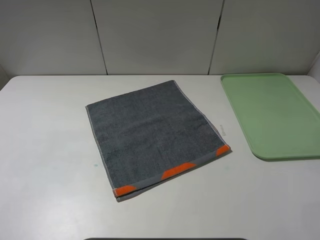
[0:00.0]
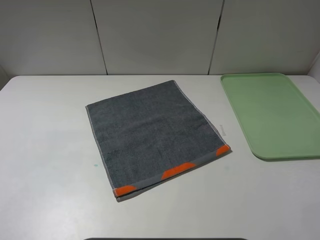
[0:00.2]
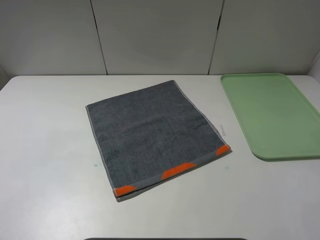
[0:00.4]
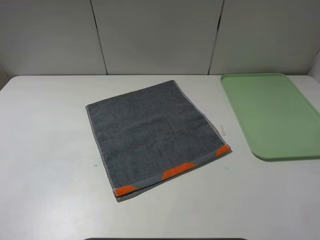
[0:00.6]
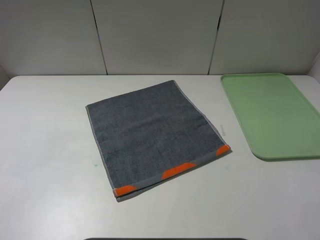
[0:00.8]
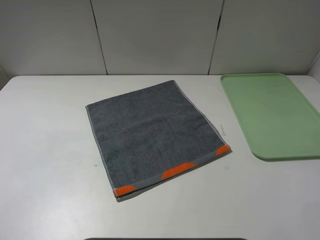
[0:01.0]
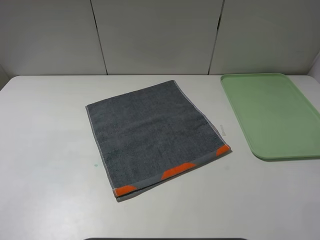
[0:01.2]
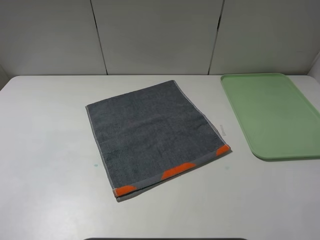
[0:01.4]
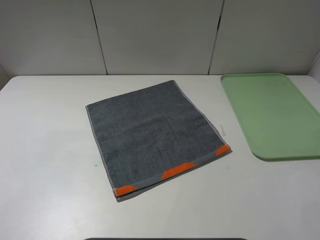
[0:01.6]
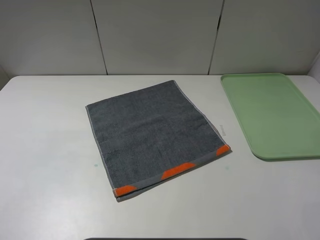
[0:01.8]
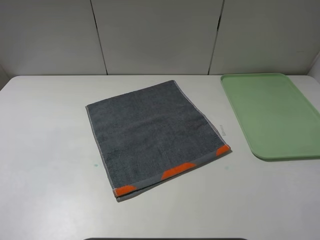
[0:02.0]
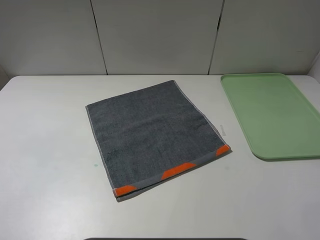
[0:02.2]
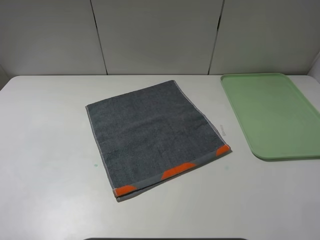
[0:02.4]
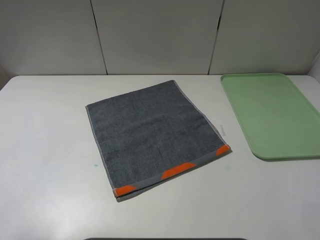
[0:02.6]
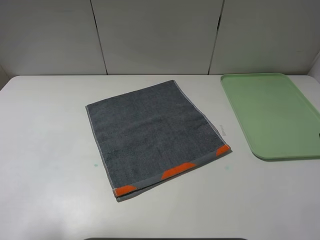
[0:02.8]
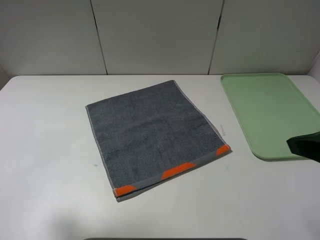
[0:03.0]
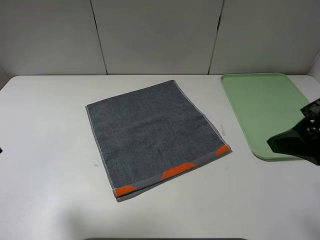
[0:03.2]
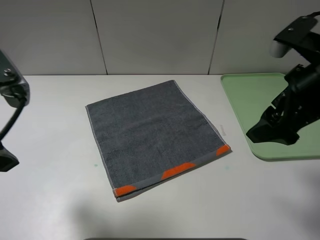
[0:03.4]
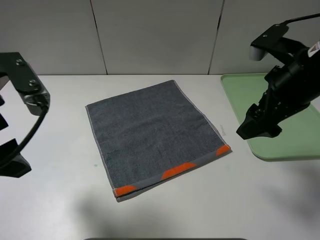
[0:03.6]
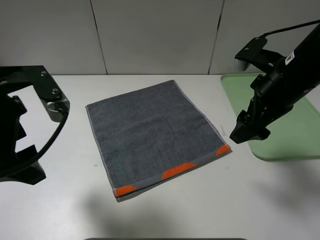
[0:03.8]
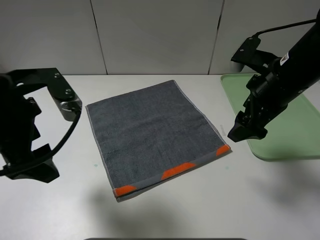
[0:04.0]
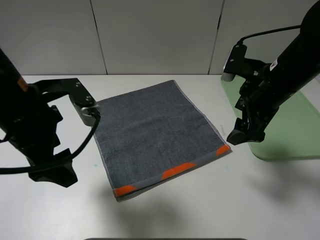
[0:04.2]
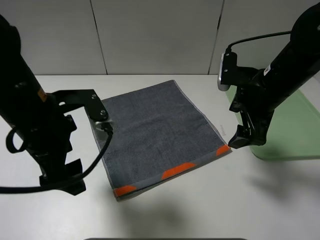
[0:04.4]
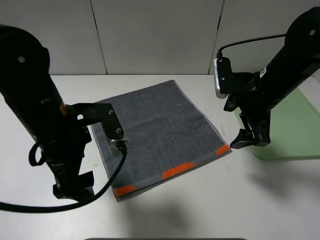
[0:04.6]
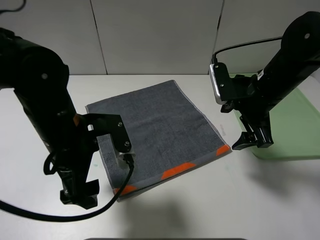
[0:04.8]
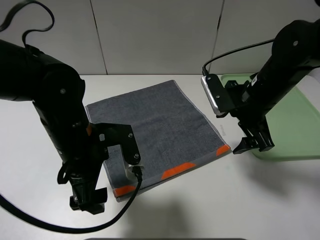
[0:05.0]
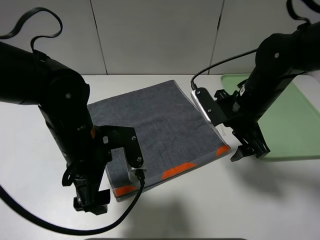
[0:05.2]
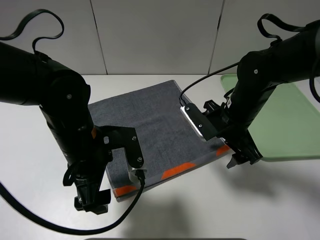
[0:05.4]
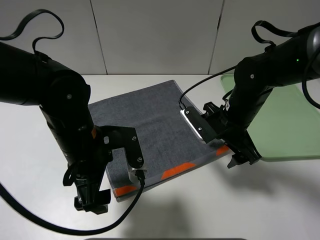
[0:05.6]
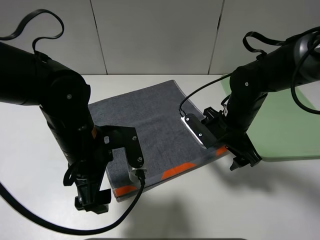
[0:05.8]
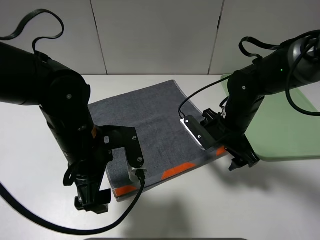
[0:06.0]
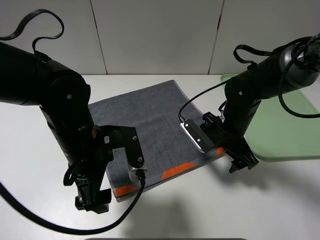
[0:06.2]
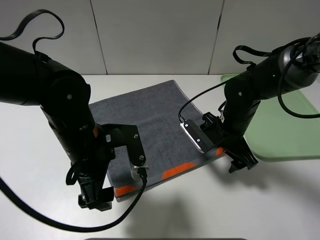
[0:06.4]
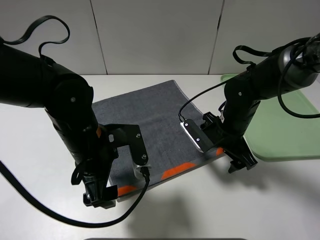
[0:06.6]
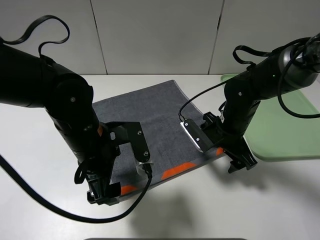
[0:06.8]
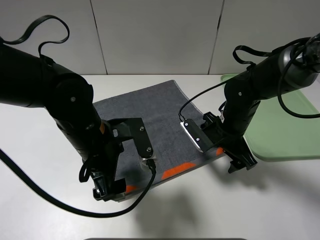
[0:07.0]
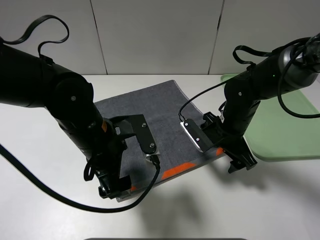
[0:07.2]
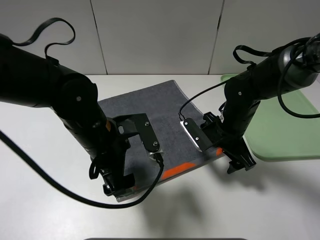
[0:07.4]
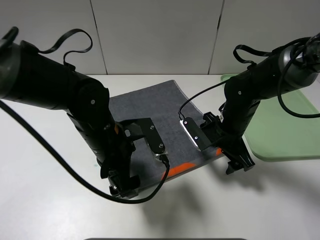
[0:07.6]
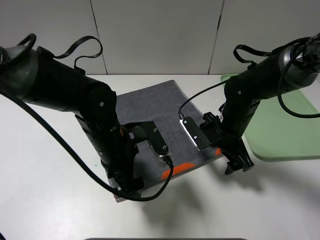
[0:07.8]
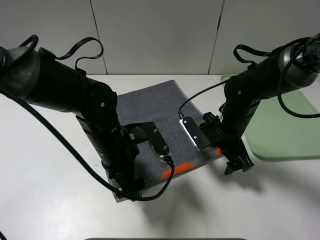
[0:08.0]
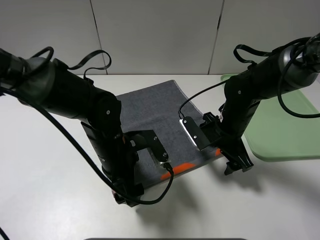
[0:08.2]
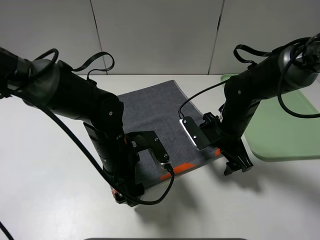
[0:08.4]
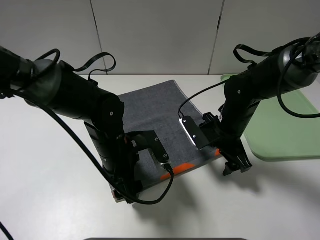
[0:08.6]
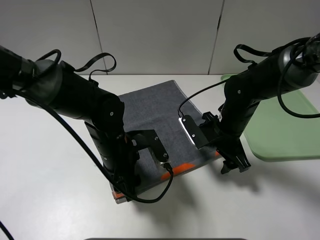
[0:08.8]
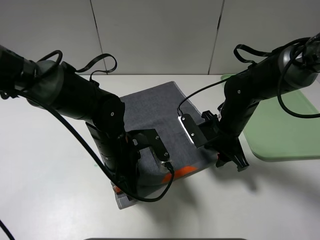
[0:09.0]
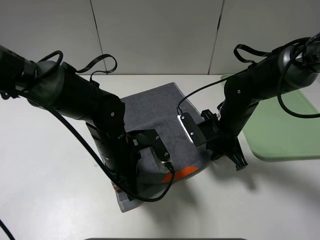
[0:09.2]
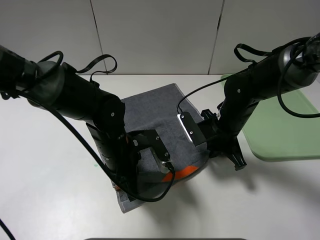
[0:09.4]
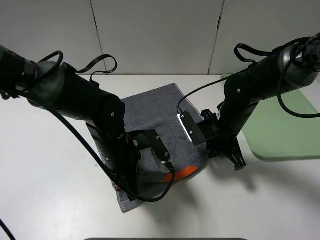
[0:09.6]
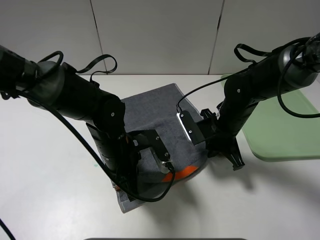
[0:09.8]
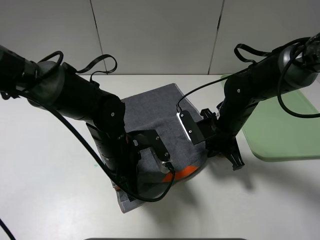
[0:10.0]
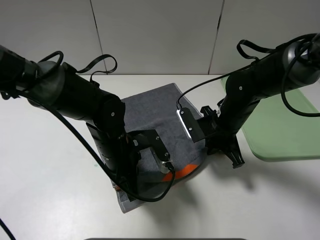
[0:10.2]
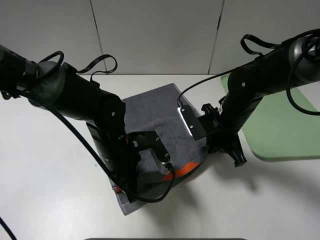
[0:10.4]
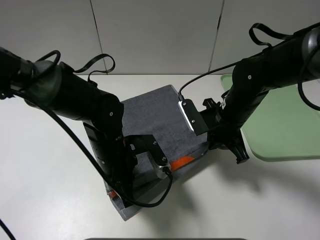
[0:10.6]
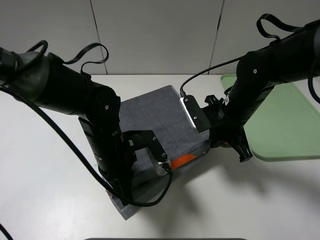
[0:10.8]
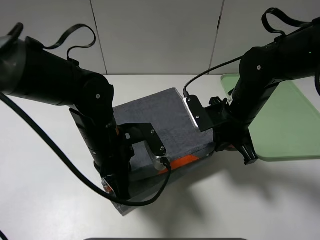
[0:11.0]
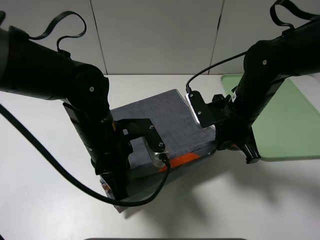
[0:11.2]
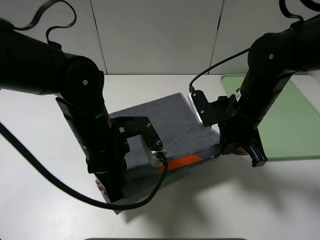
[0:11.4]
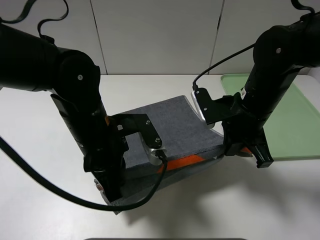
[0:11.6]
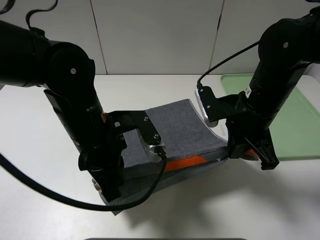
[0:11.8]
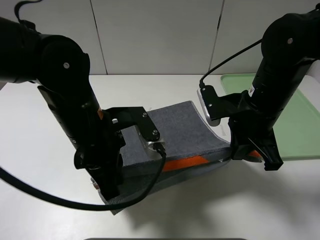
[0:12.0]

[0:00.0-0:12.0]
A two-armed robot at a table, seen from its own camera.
0:00.0 to 0:01.6: The two grippers keep their place.
0:01.6 to 0:03.0: The right gripper is displaced forward by approximately 10 cm. Meanwhile the left gripper shifts roughly 15 cm forward and to the right.
0:03.0 to 0:04.4: The right gripper travels forward, downward and to the left by some 20 cm. The left gripper goes approximately 15 cm downward, to the right and forward.
0:04.4 to 0:06.0: The left gripper shifts about 5 cm downward. Meanwhile the right gripper shifts approximately 10 cm downward.
0:07.6 to 0:09.0: The left gripper closes up, while the right gripper closes.
0:09.0 to 0:10.4: The right gripper closes its fingers.
0:10.4 to 0:12.0: Both grippers travel together upward, roughly 10 cm.

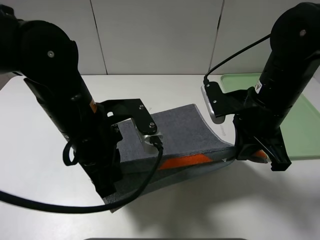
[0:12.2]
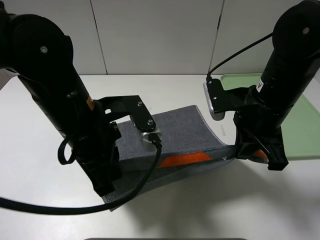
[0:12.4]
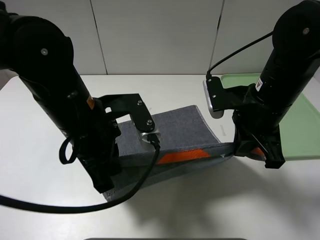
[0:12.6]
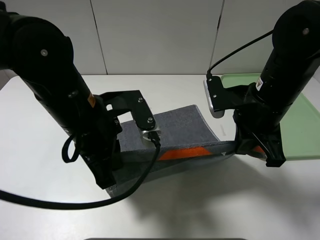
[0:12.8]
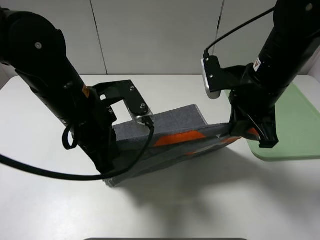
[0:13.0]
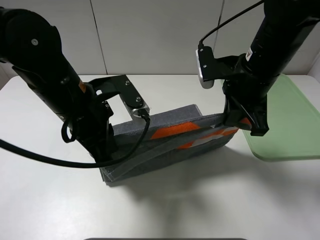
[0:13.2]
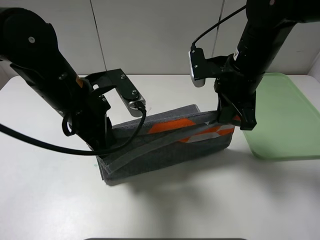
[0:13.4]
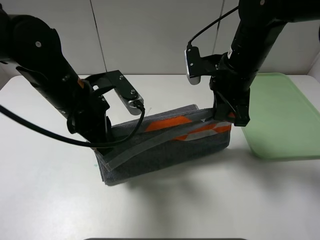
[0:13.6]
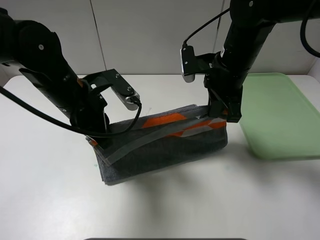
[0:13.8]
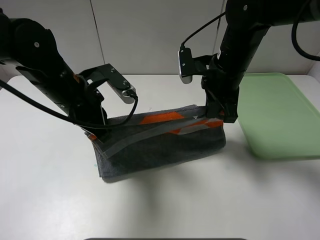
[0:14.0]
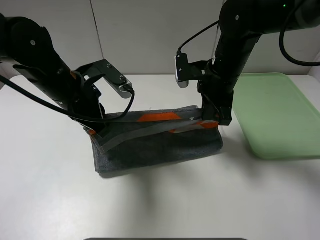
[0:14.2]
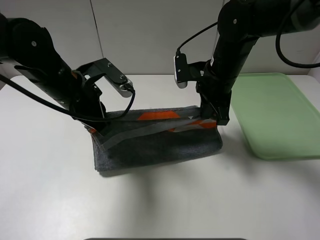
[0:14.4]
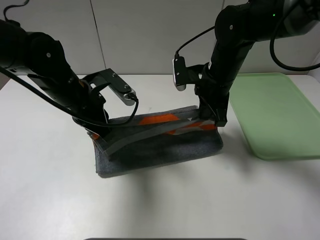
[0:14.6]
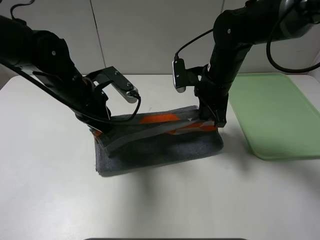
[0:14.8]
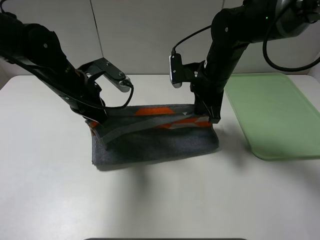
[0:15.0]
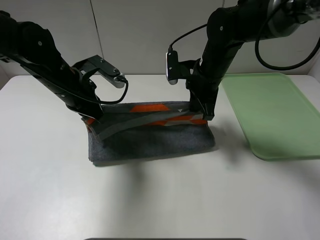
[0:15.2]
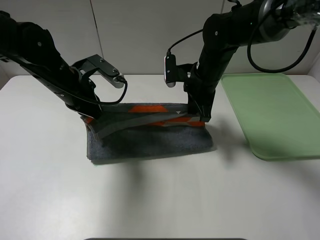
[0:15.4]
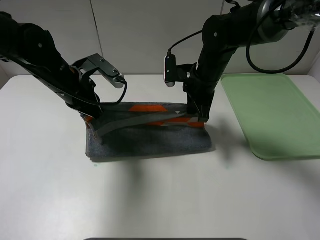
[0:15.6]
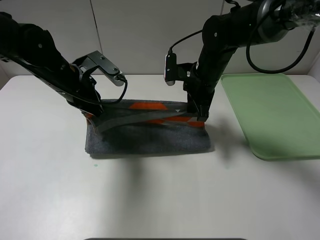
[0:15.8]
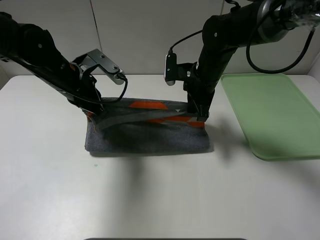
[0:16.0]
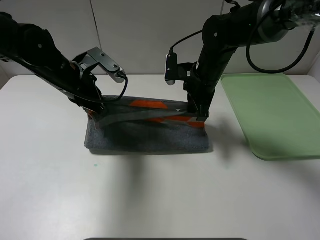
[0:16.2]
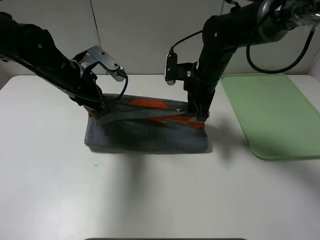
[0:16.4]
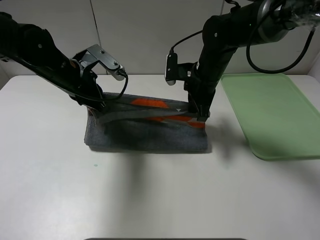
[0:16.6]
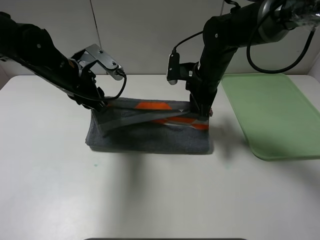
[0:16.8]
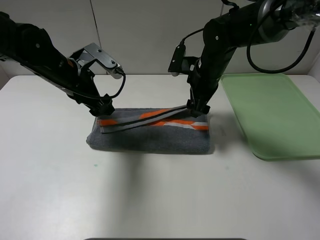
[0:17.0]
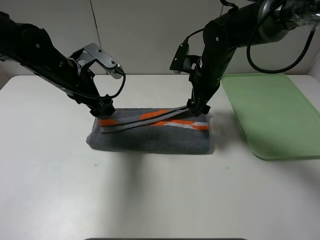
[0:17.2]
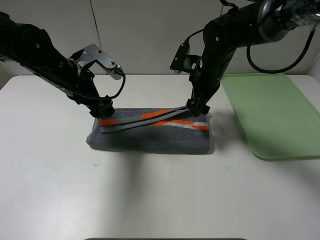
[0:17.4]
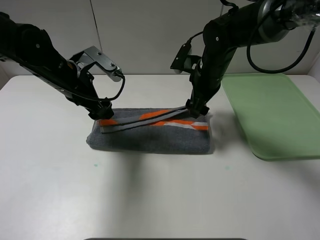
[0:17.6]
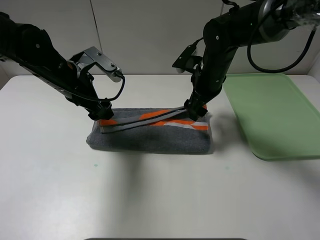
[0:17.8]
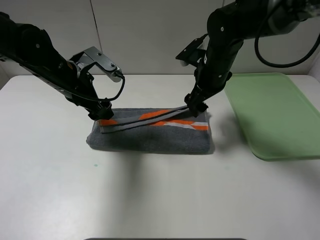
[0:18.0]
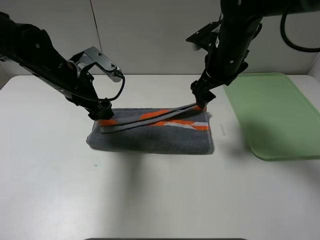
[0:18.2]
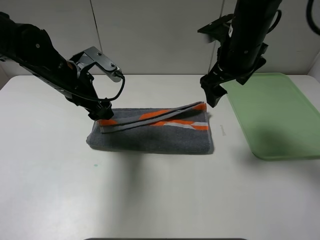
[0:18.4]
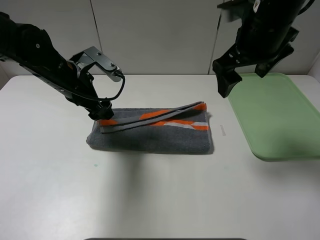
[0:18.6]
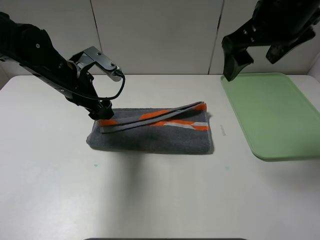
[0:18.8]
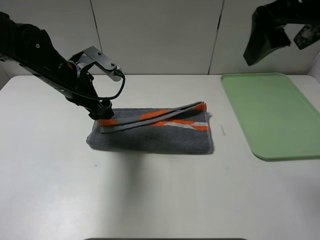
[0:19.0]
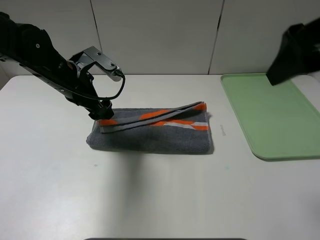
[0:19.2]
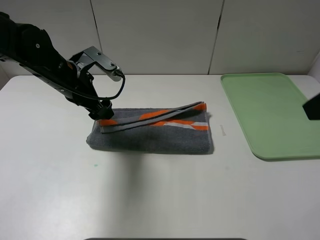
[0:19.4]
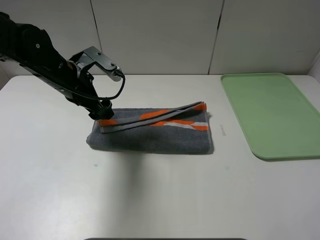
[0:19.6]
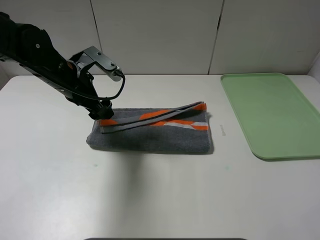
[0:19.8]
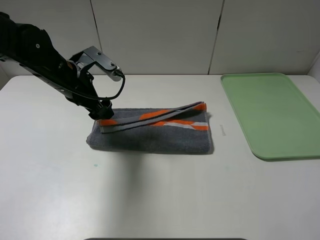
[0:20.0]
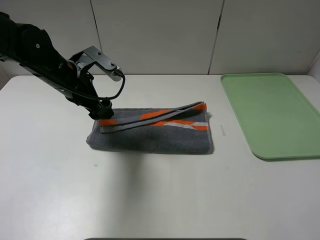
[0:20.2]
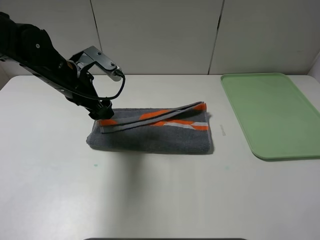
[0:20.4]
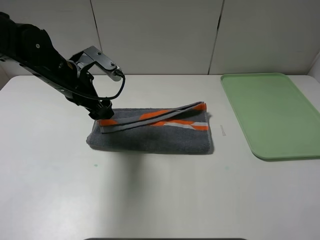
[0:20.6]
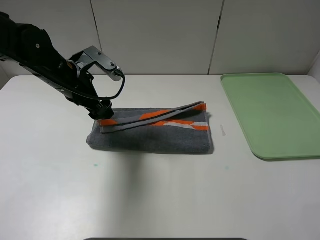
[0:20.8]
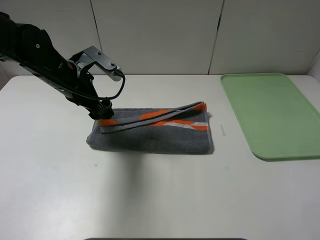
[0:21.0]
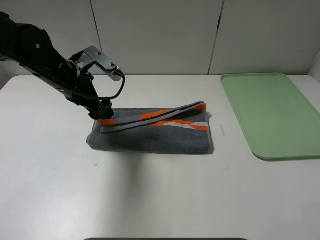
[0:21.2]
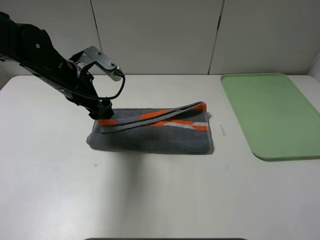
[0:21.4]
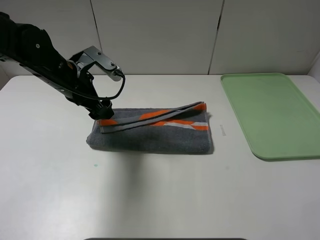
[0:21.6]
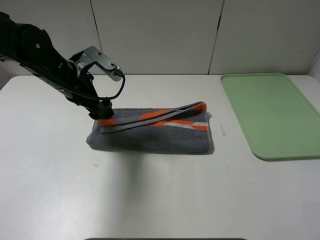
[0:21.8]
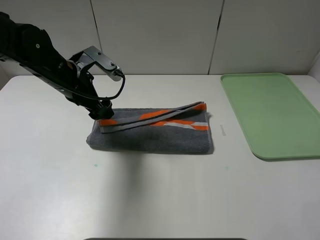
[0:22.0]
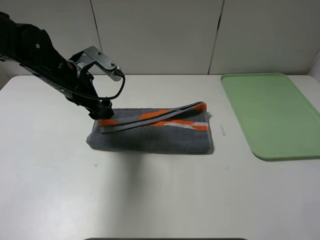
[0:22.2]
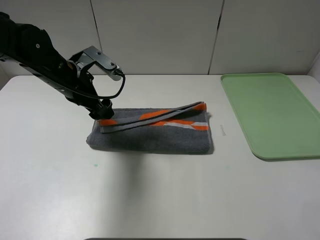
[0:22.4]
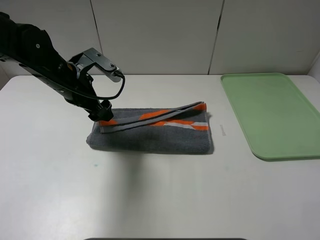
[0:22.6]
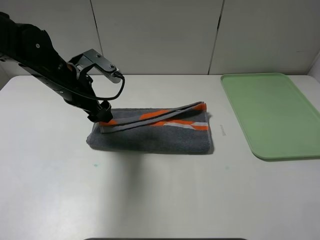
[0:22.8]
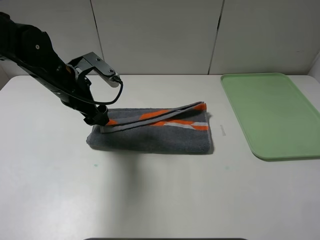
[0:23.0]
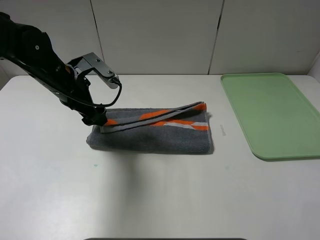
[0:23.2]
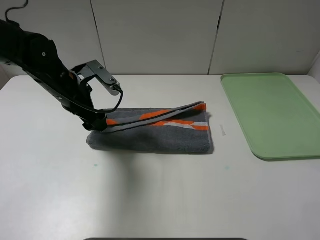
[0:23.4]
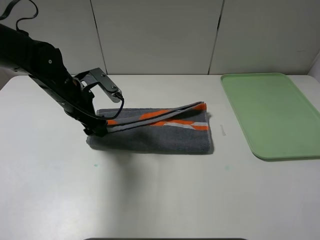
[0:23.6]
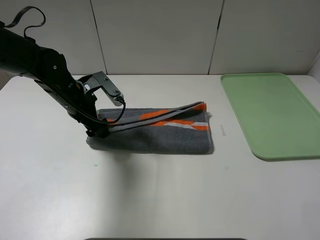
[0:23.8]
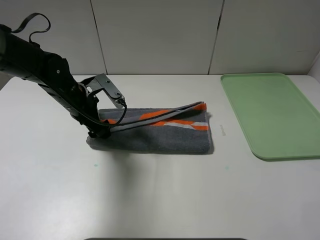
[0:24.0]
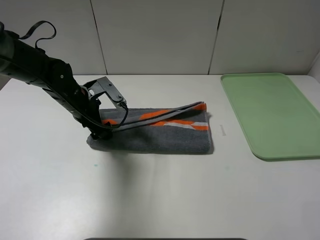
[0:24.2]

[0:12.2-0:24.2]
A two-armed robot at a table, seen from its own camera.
Step, 0:12.2 to 0:17.8: Fold the grey towel upwards.
0:12.2 to 0:13.8: Both grippers move forward, roughly 10 cm.
0:13.8 to 0:15.2: The right gripper shifts by some 5 cm, while the left gripper is displaced forward by approximately 5 cm.
0:15.2 to 0:16.6: There are only small adjustments of the grippers.
0:16.6 to 0:18.2: The left gripper opens its fingers; the right gripper goes some 5 cm upward, and opens up.
0:18.2 to 0:19.8: The right gripper goes approximately 35 cm backward and to the right.
0:22.6 to 0:24.2: The left gripper travels downward by roughly 5 cm.
